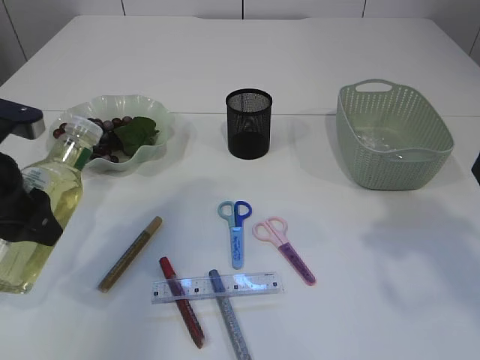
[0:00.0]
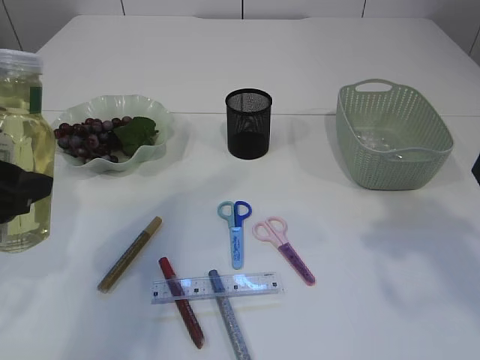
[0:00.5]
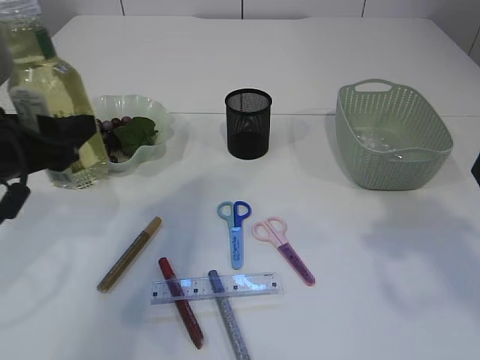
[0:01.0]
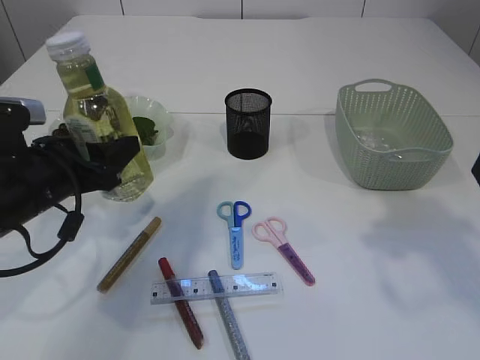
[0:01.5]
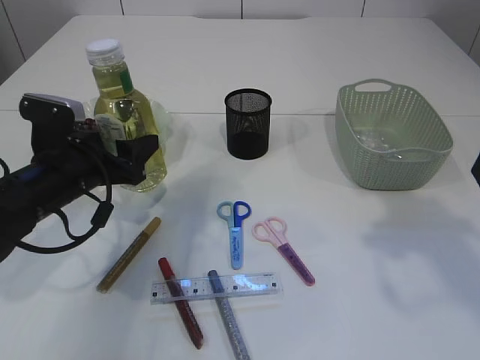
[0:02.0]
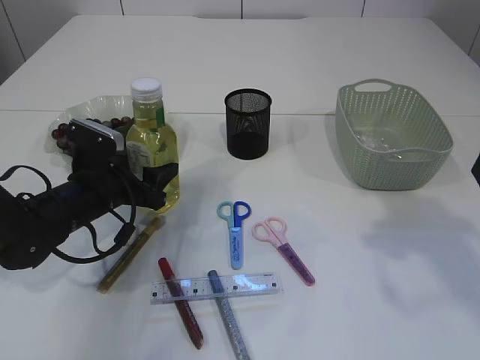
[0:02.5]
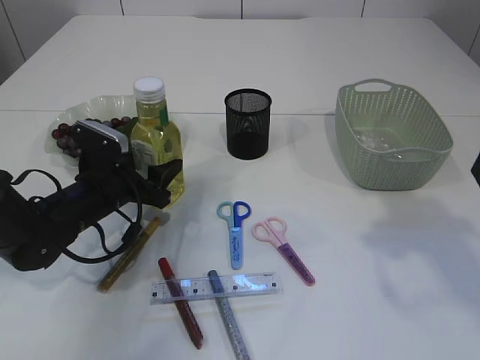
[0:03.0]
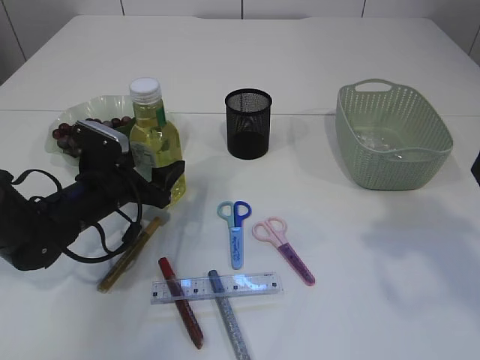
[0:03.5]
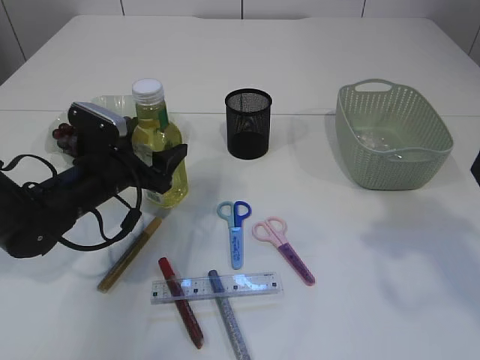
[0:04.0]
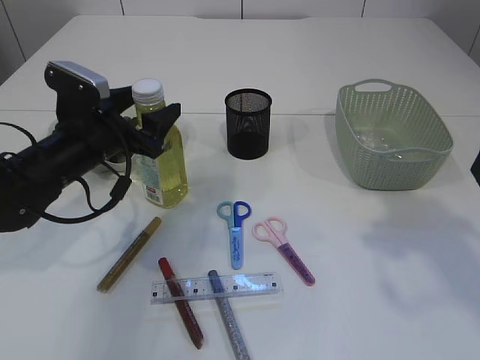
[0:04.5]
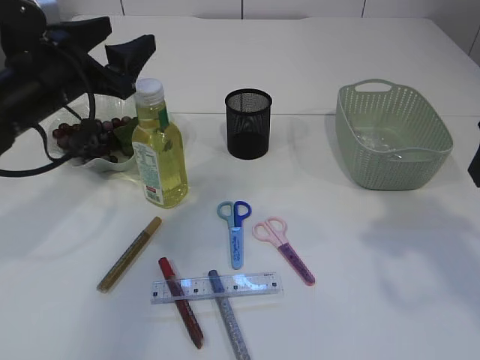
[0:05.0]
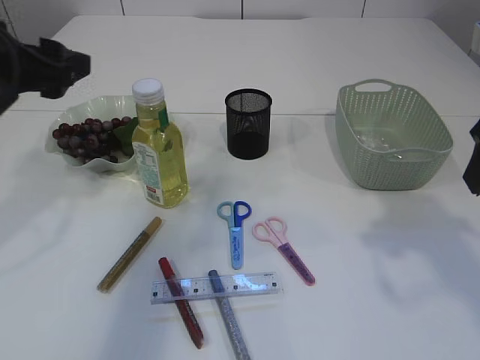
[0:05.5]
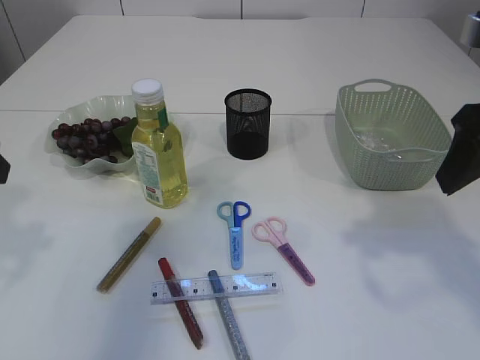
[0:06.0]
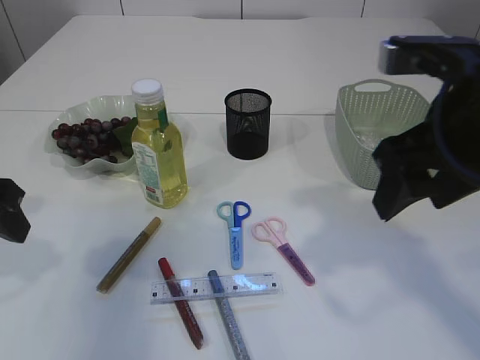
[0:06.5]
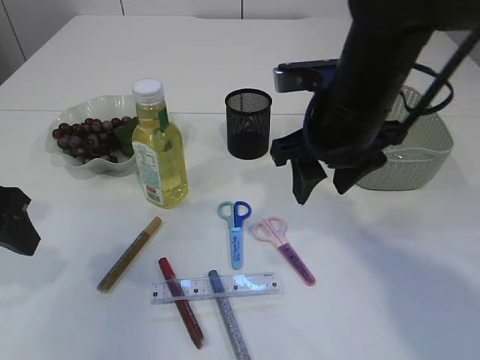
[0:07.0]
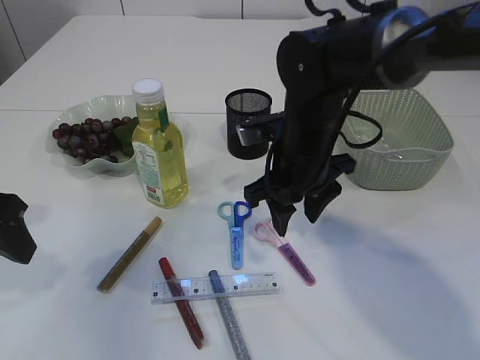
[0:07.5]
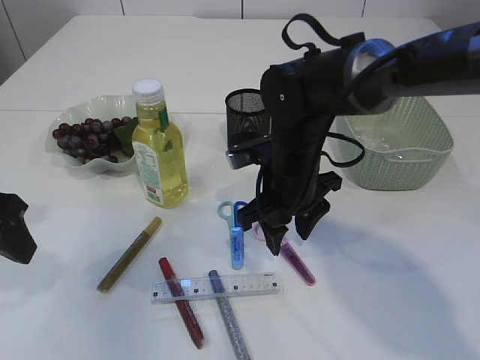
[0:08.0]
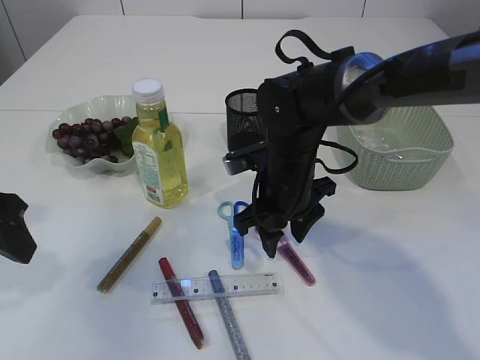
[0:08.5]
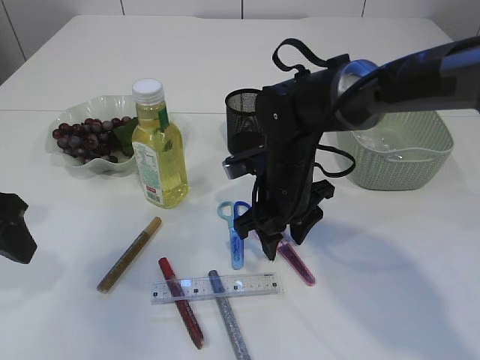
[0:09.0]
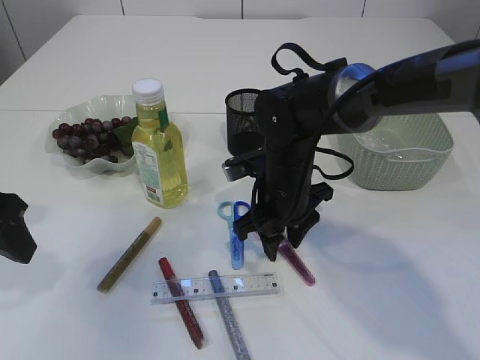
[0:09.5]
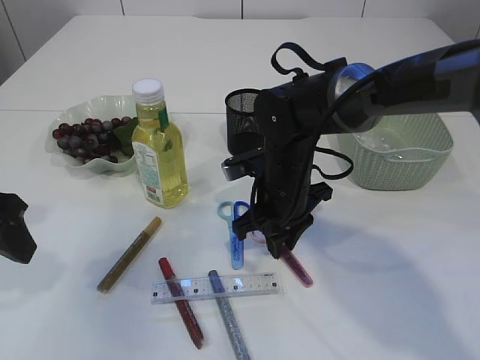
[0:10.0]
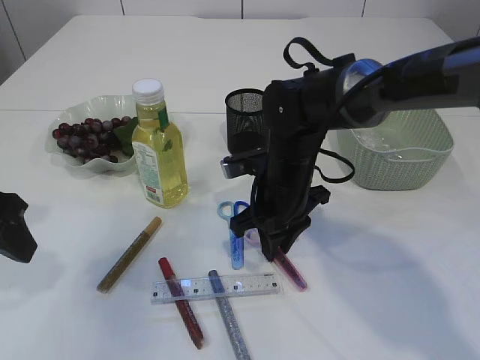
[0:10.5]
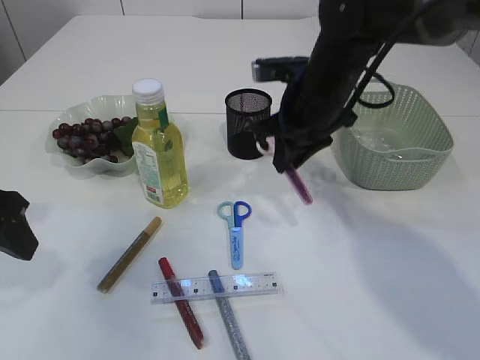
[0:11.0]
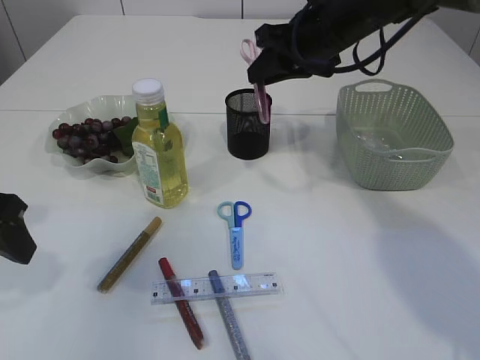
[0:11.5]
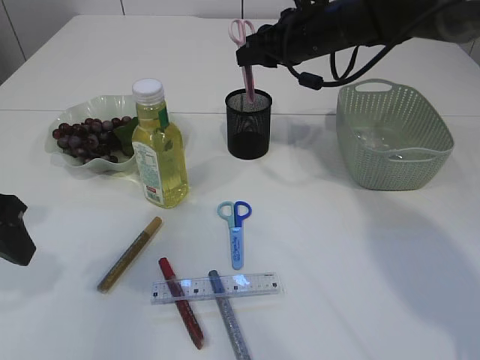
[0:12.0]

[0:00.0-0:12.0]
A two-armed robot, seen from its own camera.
Step, 0:00.0 to 0:04.5: Place the bottle.
Step, 0:05.0 to 0:10.5: pick up the pink scissors.
0:00.0 to 0:02.0: The left gripper moves downward and forward, some 10 cm.
0:02.0 to 0:04.0: The left gripper shifts by some 5 cm.
0:04.0 to 0:06.0: The left gripper is displaced upward, backward and to the left by roughly 25 cm.
0:06.0 to 0:08.0: The right gripper goes roughly 25 cm to the left, downward and forward. The left gripper ends up roughly 5 cm from where it was.
0:08.0 to 0:10.0: The right gripper closes up.
0:10.0 to 0:12.0: The right gripper shifts some 20 cm upward, forward and to the right.

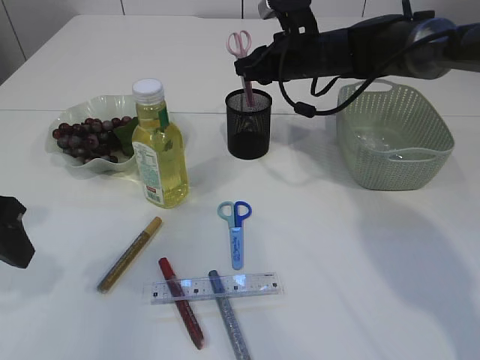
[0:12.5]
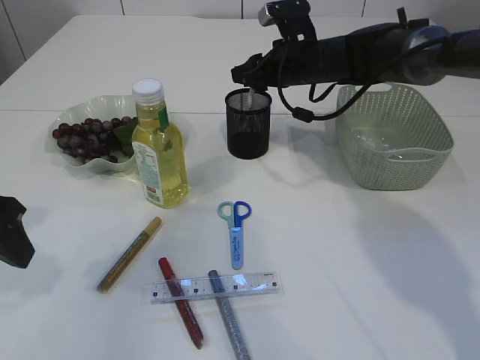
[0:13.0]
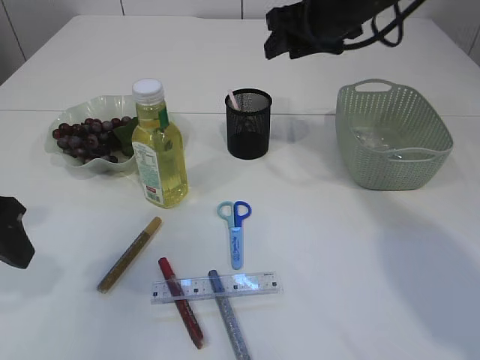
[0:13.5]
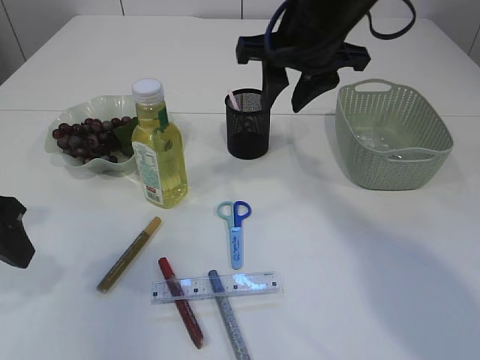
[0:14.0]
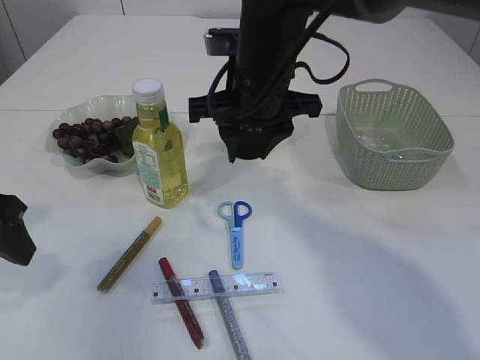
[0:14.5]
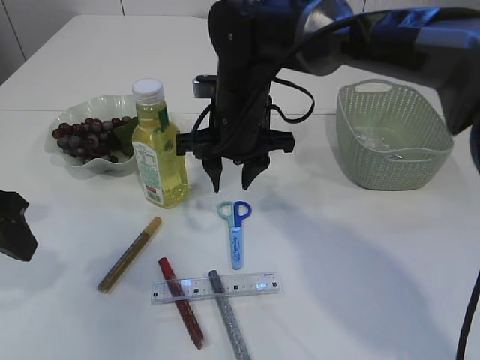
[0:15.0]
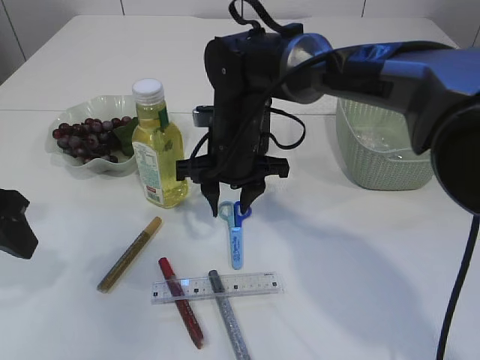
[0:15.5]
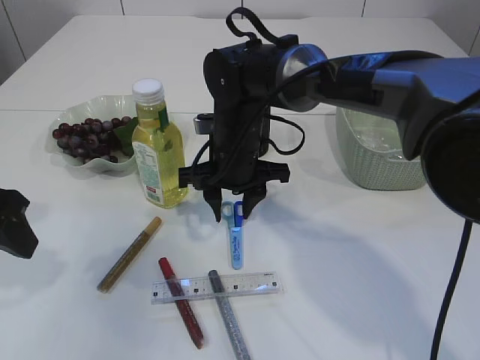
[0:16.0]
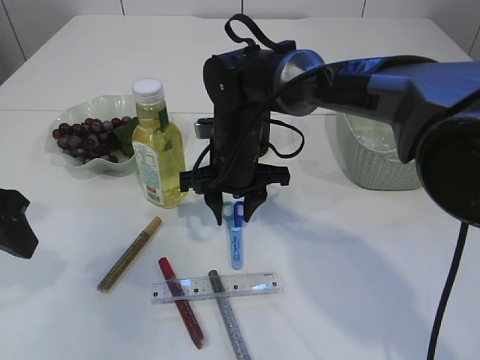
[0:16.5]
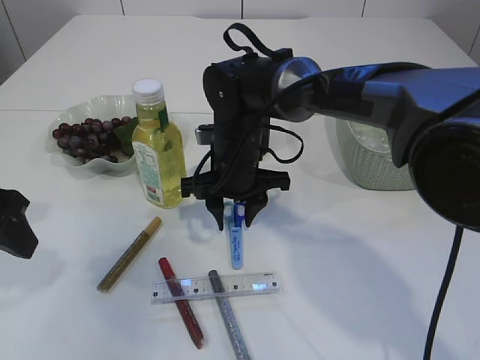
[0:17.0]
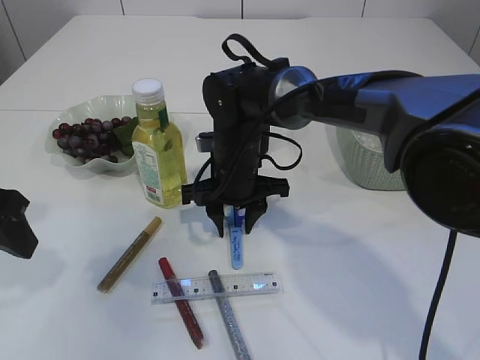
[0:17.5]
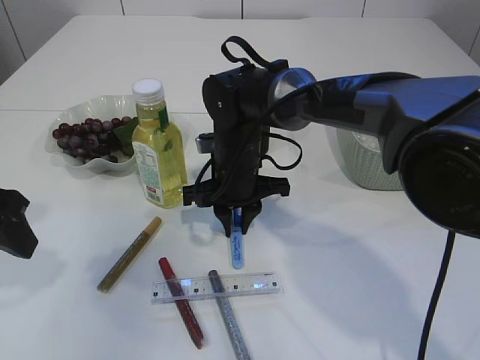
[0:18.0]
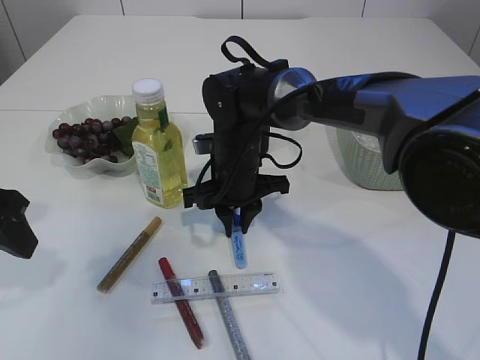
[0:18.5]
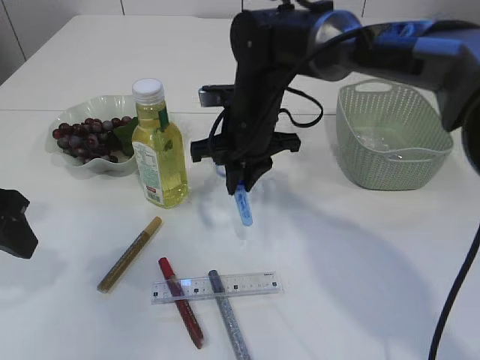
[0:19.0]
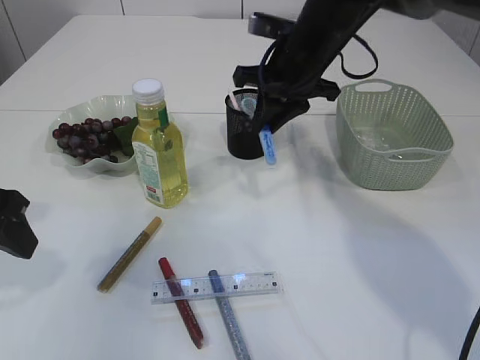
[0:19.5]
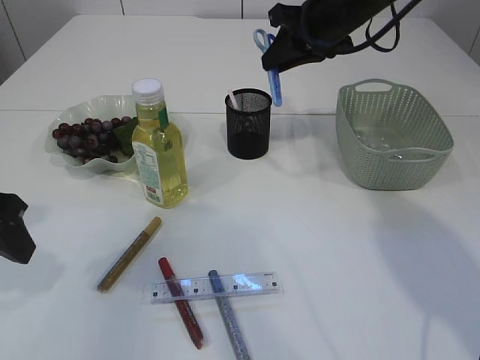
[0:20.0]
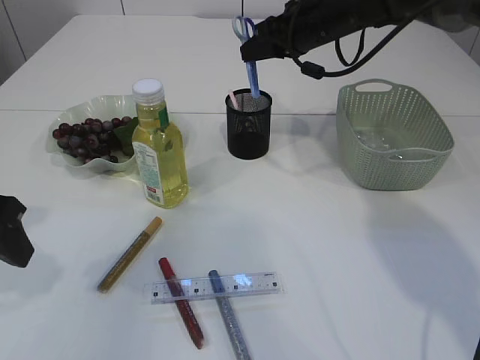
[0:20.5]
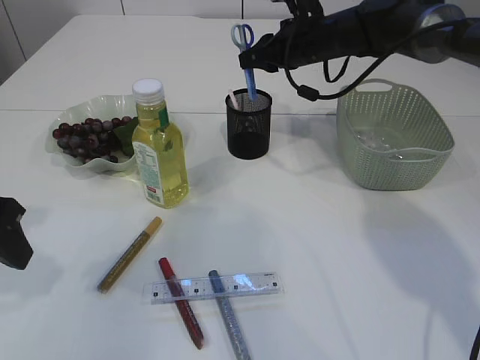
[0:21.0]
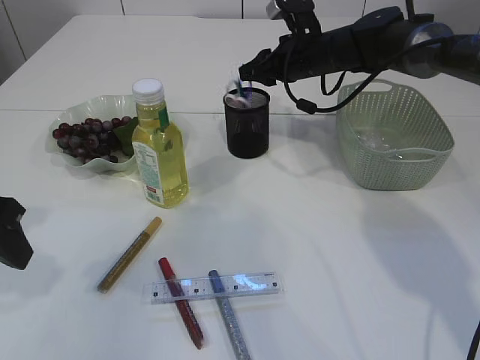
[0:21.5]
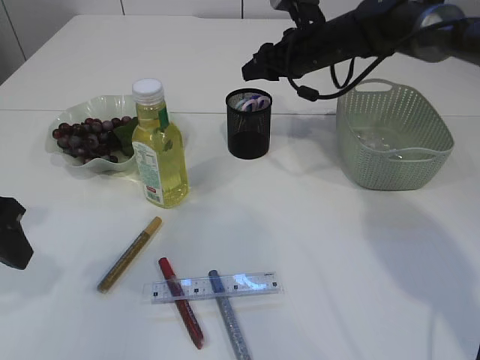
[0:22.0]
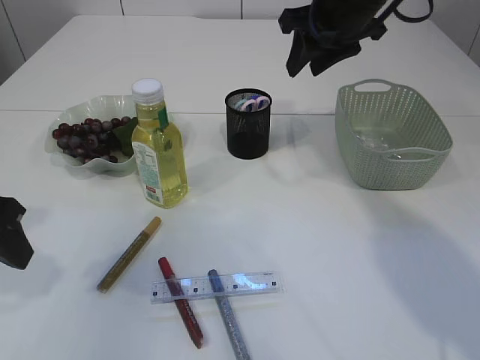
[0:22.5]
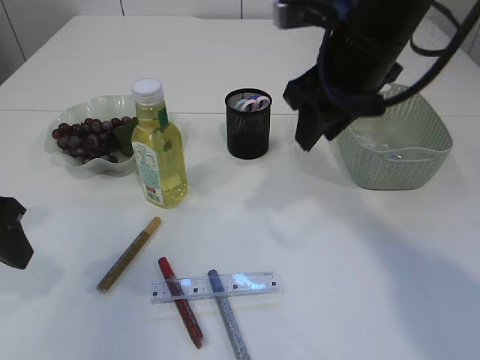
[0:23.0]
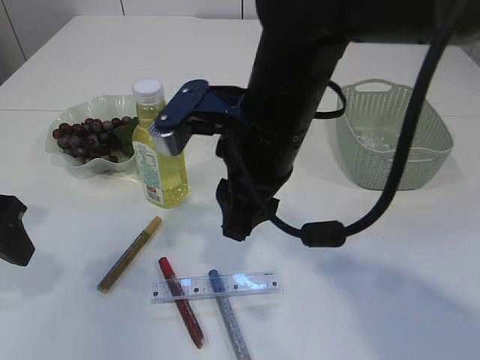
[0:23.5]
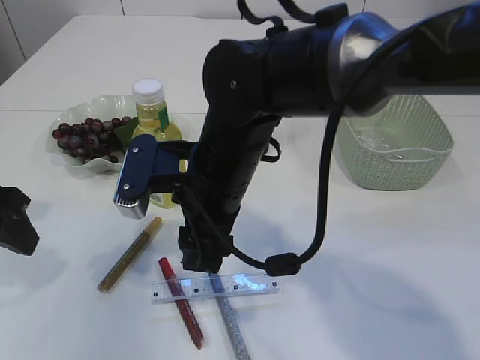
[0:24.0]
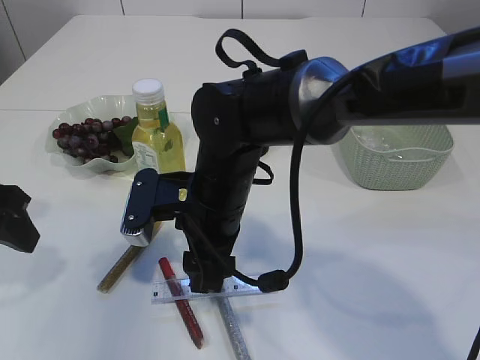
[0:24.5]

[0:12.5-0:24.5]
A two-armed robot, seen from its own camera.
Step, 0:13.5 to 0:19.0: pick up the blue scissors.
Step, 0:19.5 to 0:21.5: Place the blue scissors into the pen holder.
0:12.5 to 0:14.5: The right gripper moves backward and to the left, approximately 15 cm.
0:14.5 to 0:16.5: The right gripper shifts approximately 10 cm downward.
0:16.5 to 0:18.5: The grippers stay close to where they were, moving slightly.
0:18.5 to 0:20.5: The right gripper shifts approximately 20 cm upward, to the right and forward.
0:20.5 to 0:22.5: The right gripper is displaced backward by roughly 5 cm.
0:22.5 to 0:24.5: The right gripper is displaced to the left, downward and backward by roughly 25 cm.

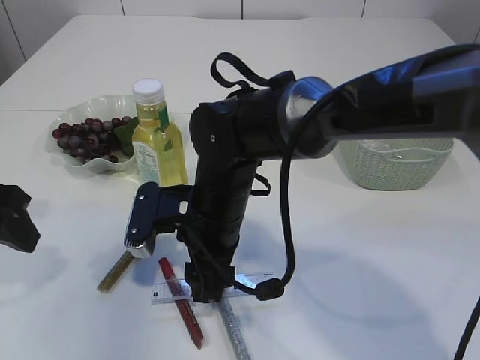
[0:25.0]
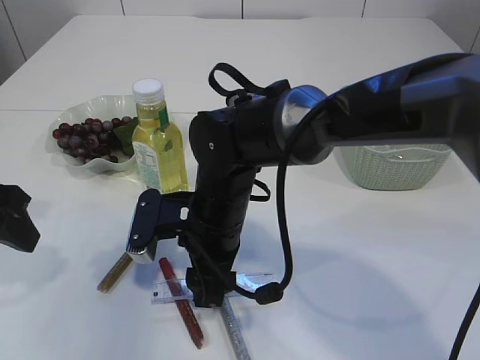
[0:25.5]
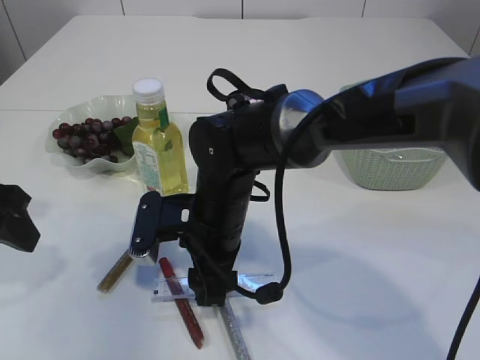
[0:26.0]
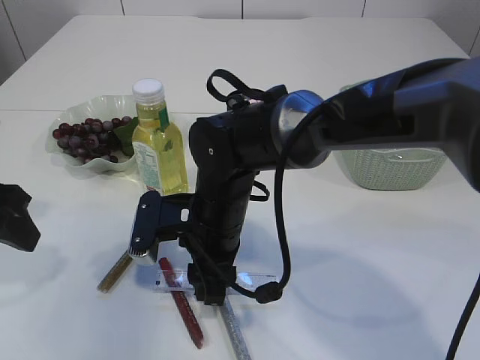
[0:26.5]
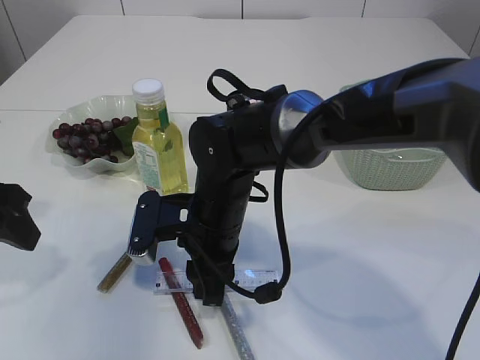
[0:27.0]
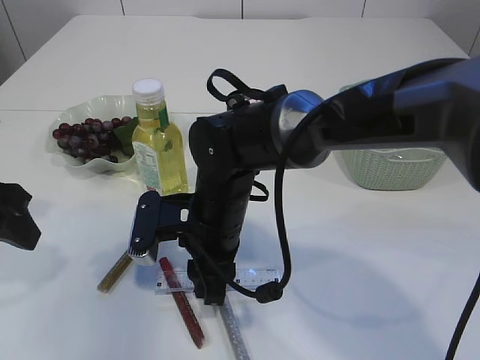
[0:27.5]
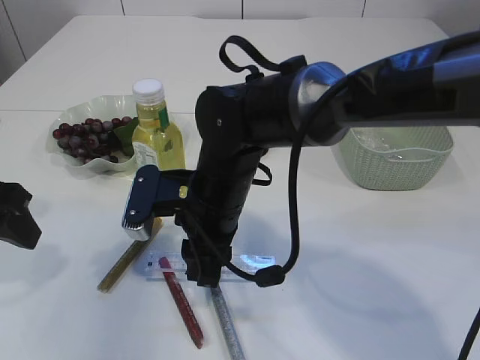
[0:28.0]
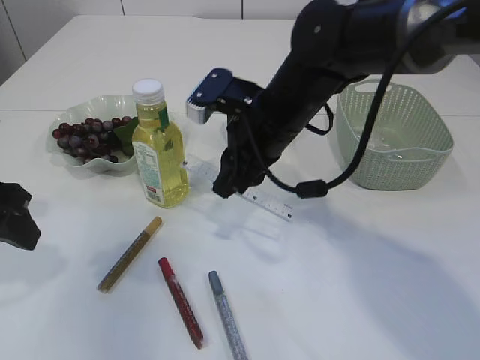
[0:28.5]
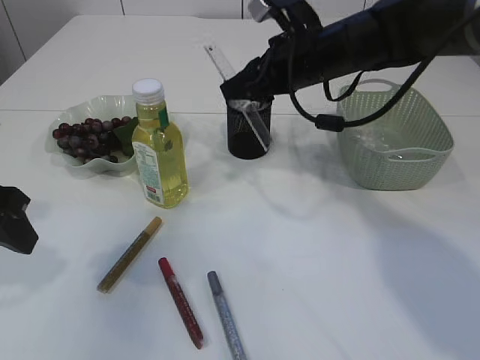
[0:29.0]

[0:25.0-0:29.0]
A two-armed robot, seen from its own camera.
Step, 0:25.0 to 0:28.0: pick up the ruler.
0:25.0 to 0:27.0: The grippers stay close to where they were, moving slightly.
0:27.0 to 0:29.0: The right gripper travels to the right, upward and forward by roughly 20 cm.
